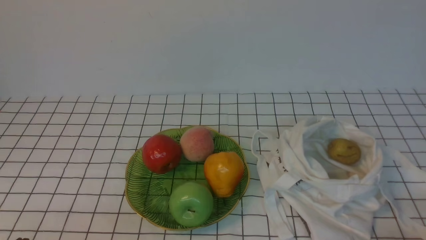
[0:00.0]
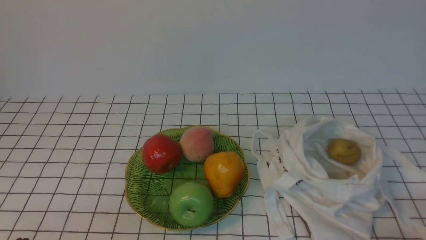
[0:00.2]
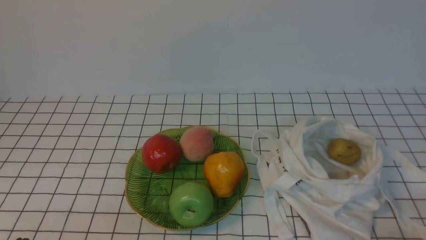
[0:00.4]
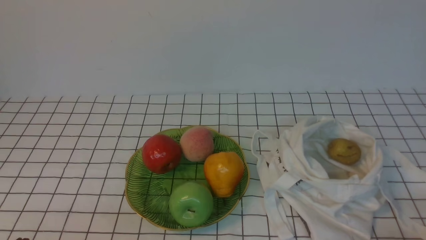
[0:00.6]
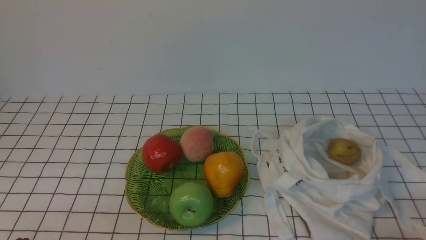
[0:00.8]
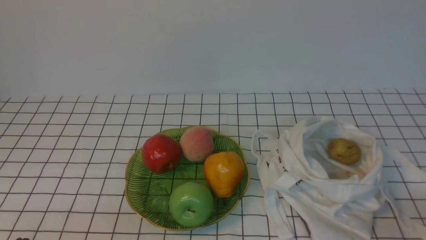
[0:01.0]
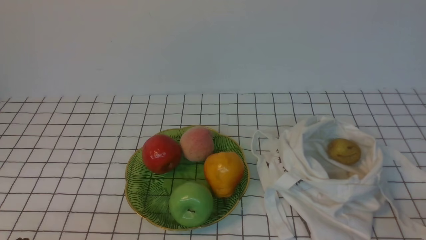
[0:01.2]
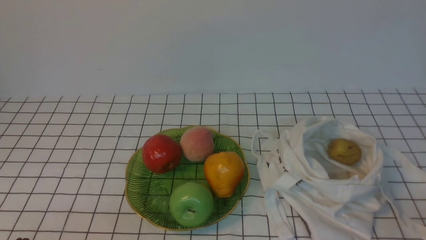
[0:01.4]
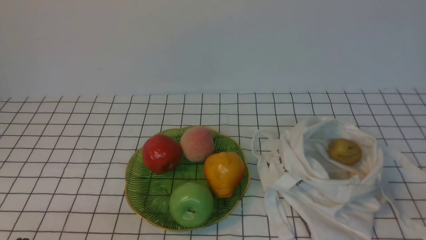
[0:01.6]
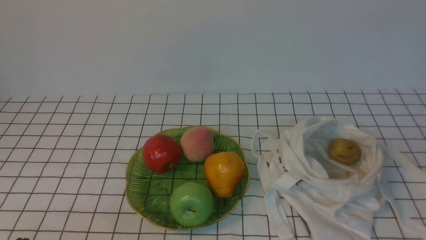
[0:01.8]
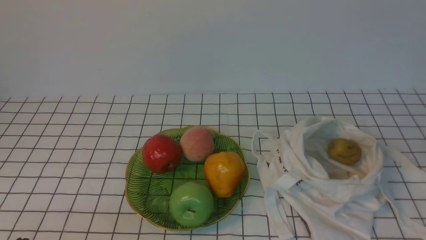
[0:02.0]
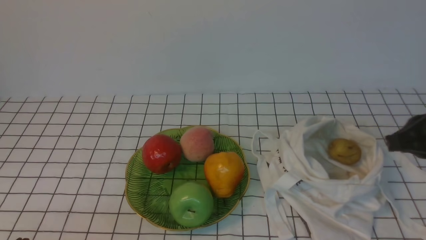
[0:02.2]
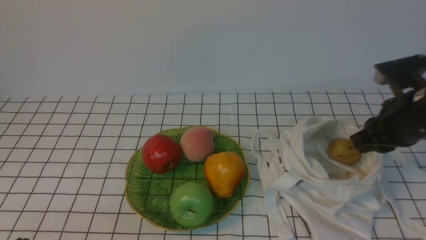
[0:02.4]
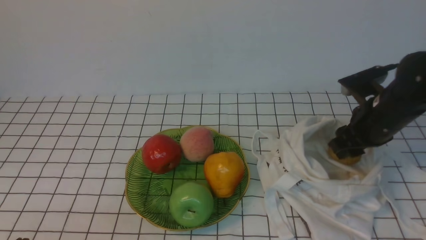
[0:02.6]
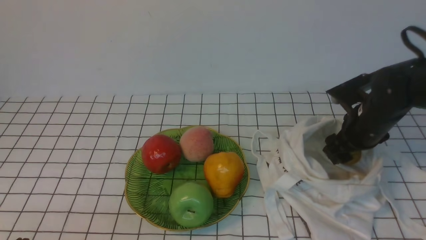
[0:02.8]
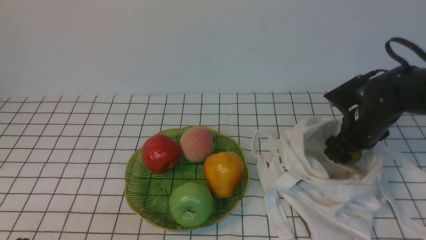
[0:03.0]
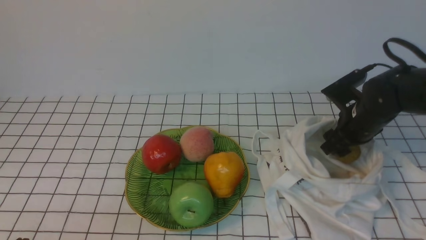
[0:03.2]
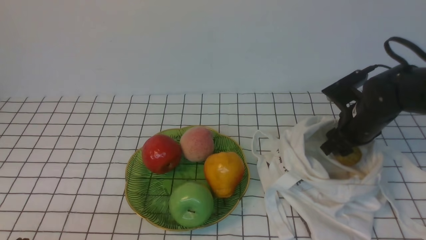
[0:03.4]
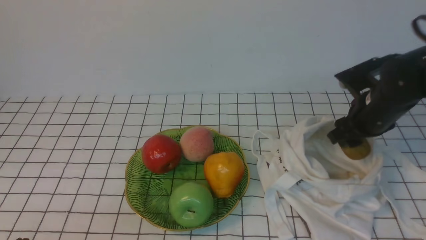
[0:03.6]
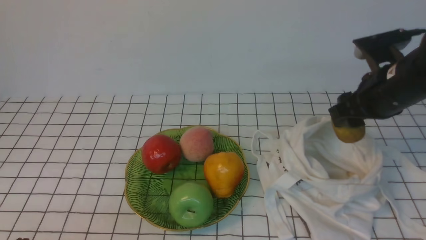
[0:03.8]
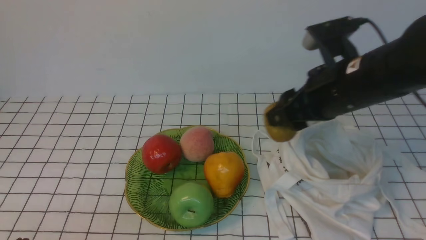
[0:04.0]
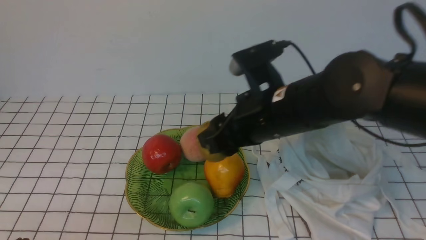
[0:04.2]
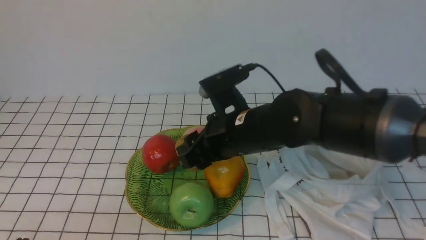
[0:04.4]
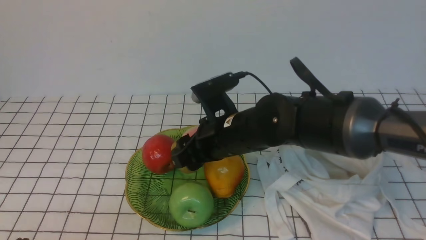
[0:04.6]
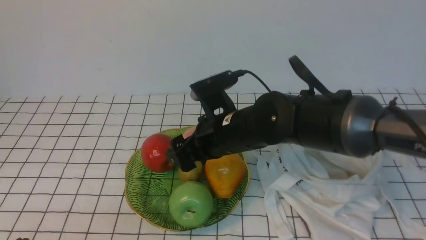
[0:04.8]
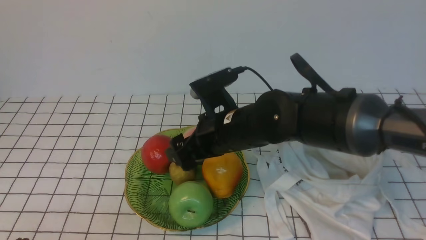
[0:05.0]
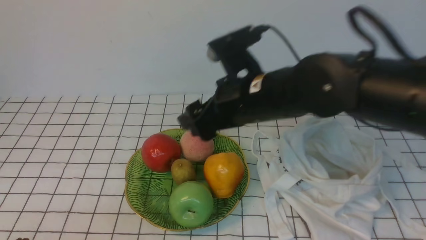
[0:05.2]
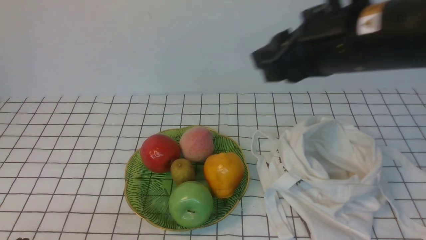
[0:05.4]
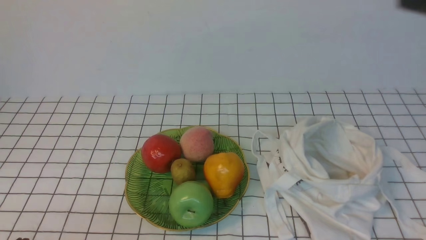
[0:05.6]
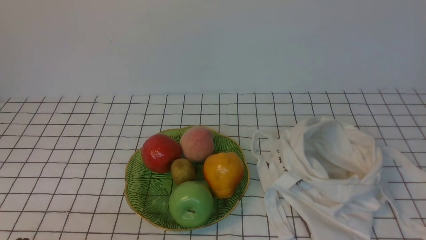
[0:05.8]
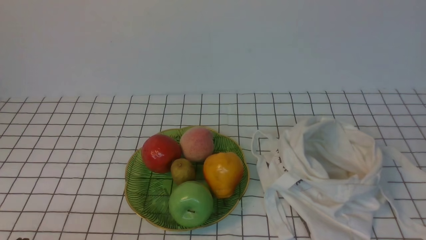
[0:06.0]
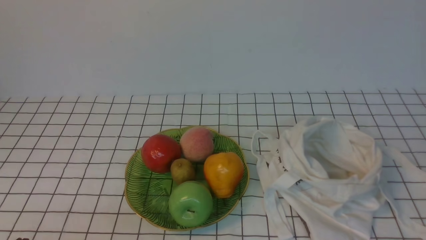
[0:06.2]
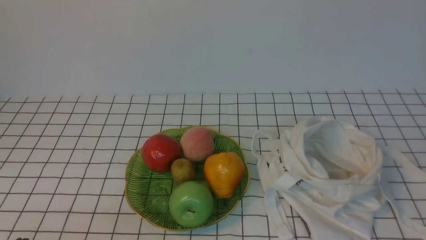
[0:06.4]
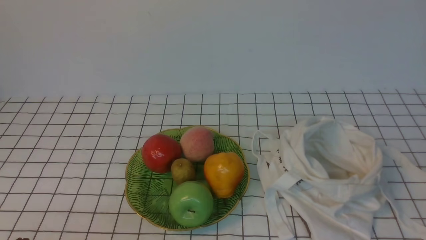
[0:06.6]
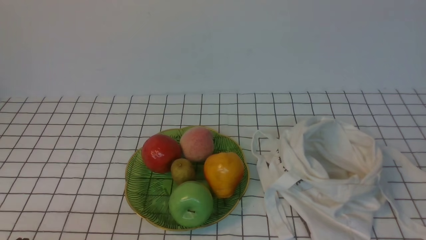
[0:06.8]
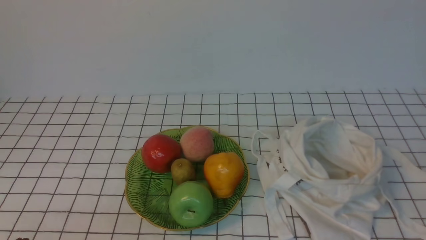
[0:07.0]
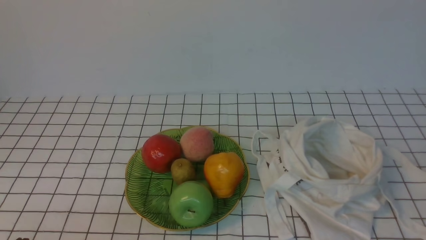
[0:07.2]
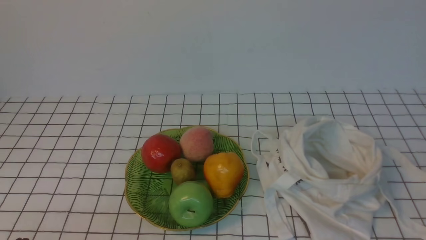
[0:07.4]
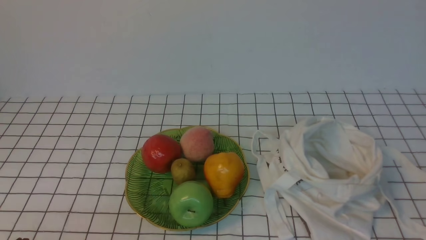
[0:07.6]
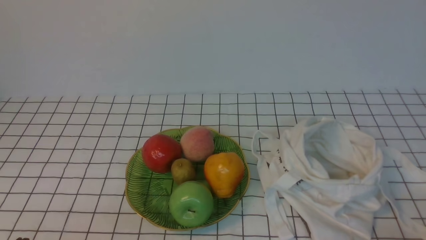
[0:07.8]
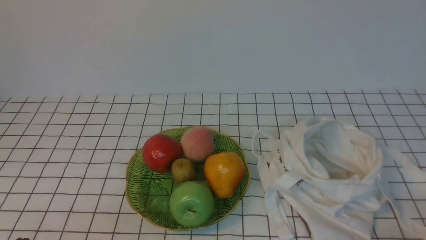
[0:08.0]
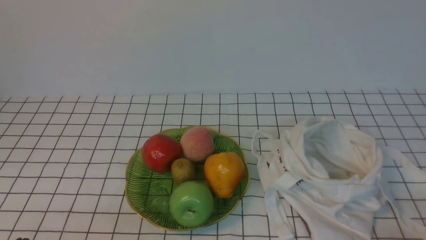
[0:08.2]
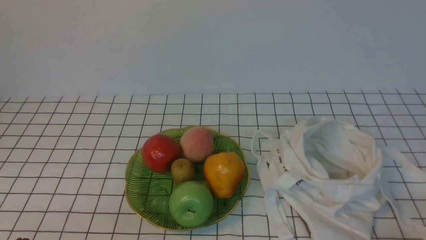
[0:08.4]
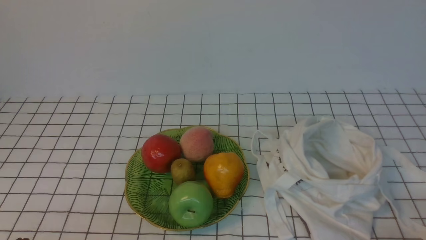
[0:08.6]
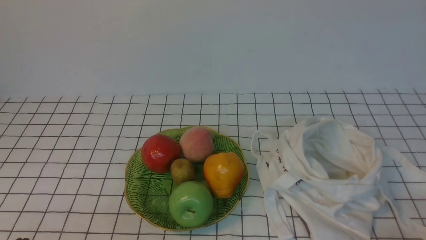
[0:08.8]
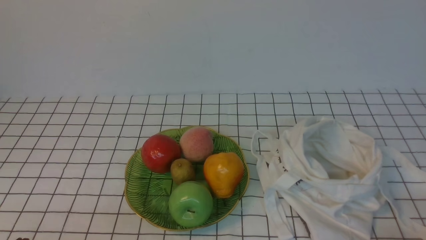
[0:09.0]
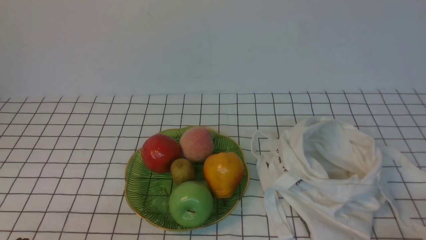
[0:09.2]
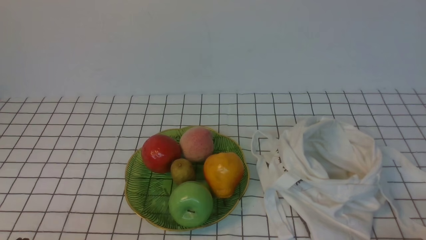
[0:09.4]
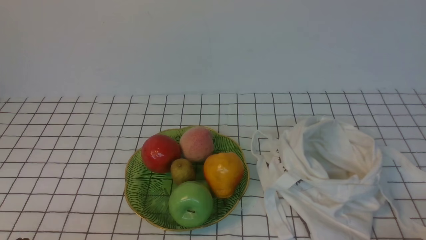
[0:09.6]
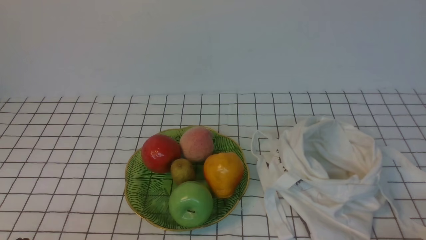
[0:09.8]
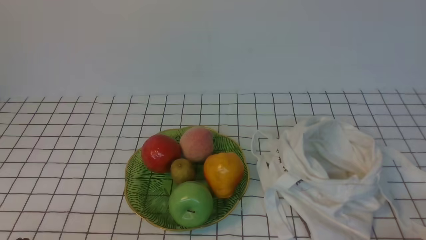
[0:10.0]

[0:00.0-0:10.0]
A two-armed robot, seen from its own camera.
Step, 0:00.0 to 0:03.4: use the right arm to grab a kiwi from the bag.
Step, 0:03.6 to 0:04.8: use the right arm to put the kiwi into the empty plate on the left.
0:01.4 to 0:02.8: The right gripper moves forward, some 30 cm, and opens.
0:02.8 to 0:04.2: The right gripper travels to the left, upward and backward by roughly 20 cm.
0:04.2 to 0:05.8: The right gripper shifts about 40 cm backward, to the right and upward, and closes its fingers.
0:08.6 to 0:10.0: Neither gripper changes place.
